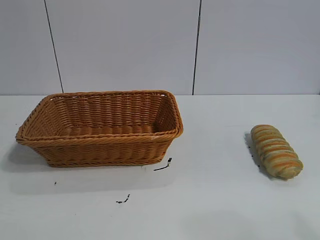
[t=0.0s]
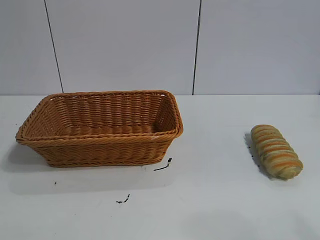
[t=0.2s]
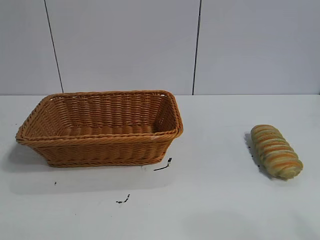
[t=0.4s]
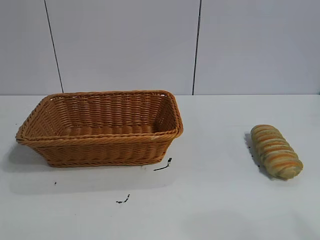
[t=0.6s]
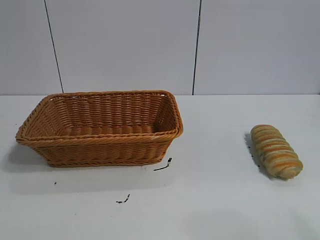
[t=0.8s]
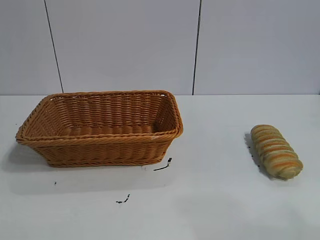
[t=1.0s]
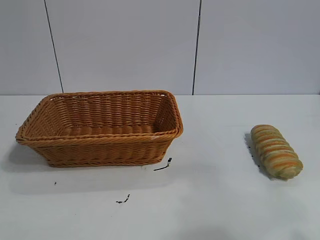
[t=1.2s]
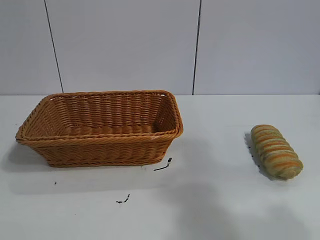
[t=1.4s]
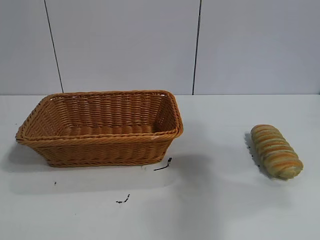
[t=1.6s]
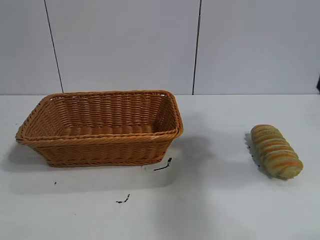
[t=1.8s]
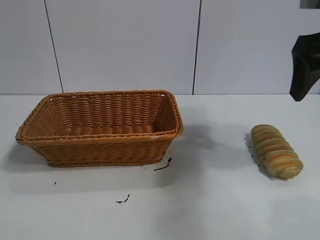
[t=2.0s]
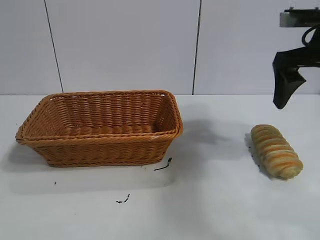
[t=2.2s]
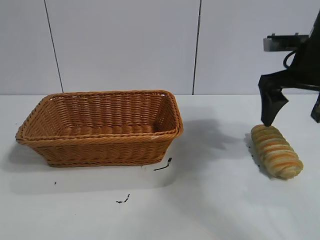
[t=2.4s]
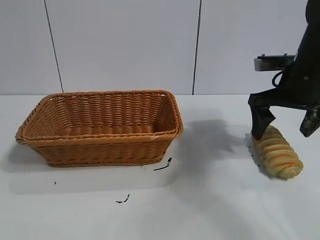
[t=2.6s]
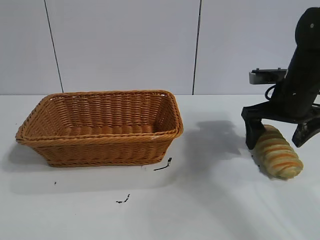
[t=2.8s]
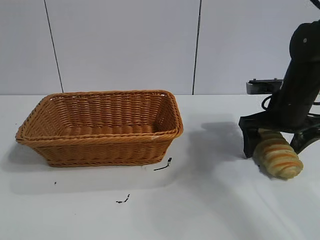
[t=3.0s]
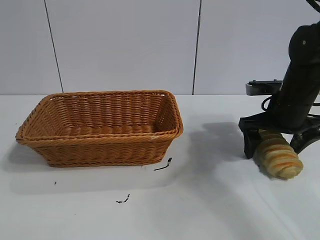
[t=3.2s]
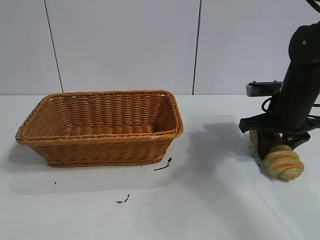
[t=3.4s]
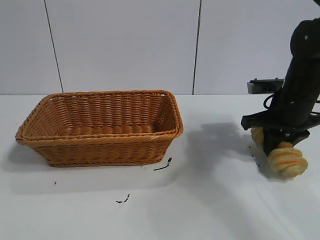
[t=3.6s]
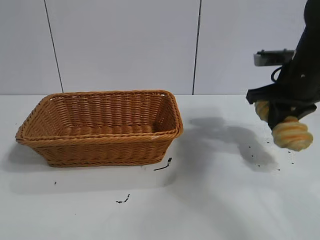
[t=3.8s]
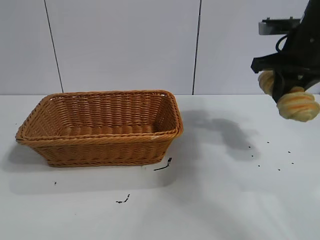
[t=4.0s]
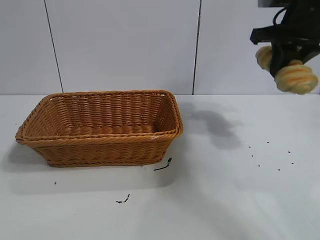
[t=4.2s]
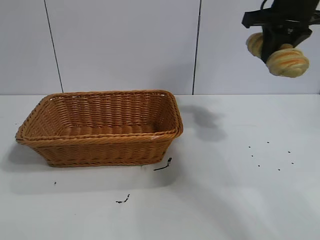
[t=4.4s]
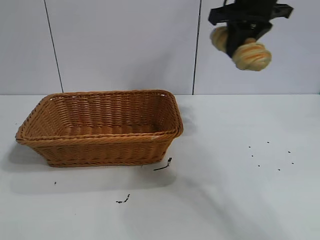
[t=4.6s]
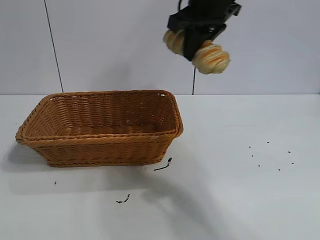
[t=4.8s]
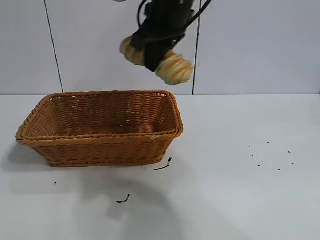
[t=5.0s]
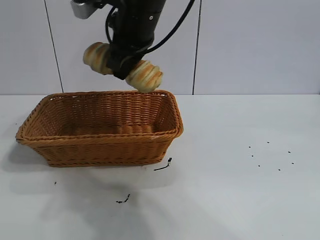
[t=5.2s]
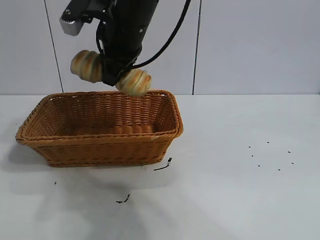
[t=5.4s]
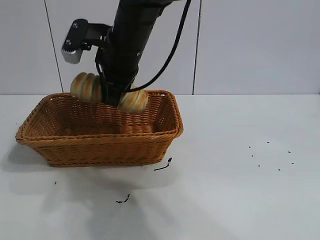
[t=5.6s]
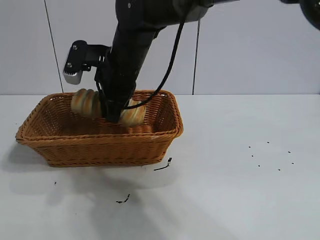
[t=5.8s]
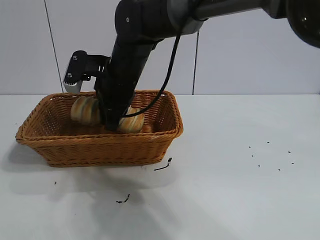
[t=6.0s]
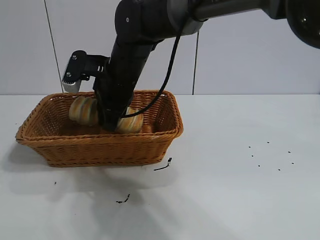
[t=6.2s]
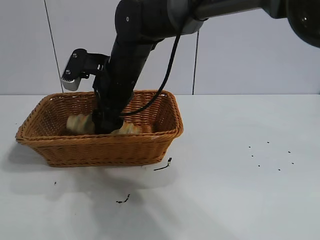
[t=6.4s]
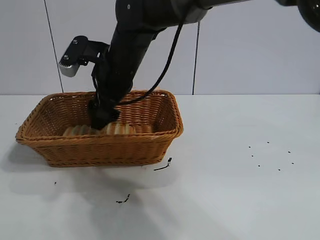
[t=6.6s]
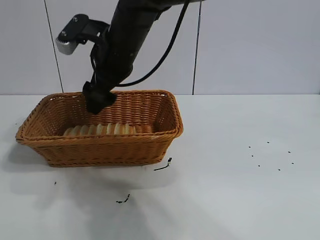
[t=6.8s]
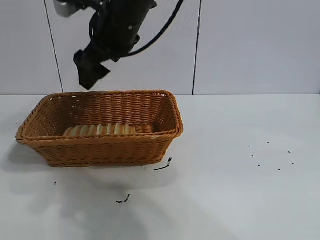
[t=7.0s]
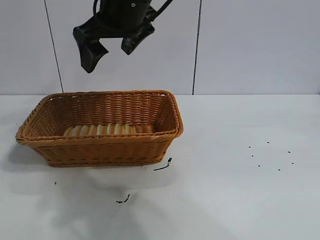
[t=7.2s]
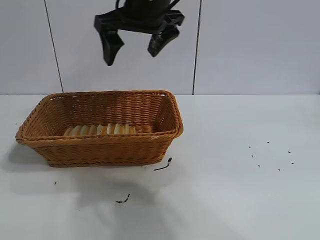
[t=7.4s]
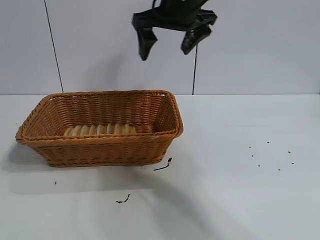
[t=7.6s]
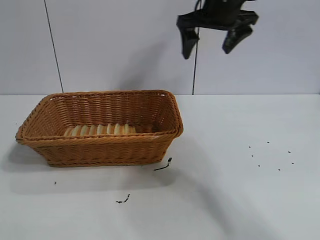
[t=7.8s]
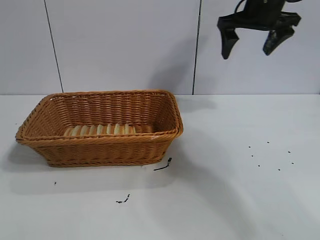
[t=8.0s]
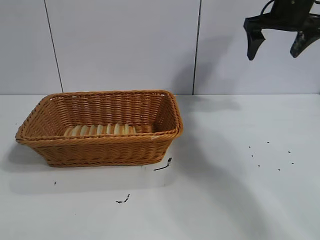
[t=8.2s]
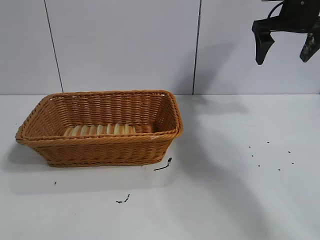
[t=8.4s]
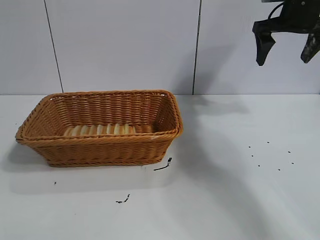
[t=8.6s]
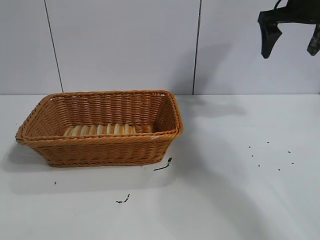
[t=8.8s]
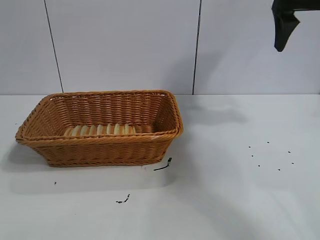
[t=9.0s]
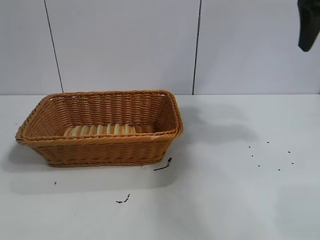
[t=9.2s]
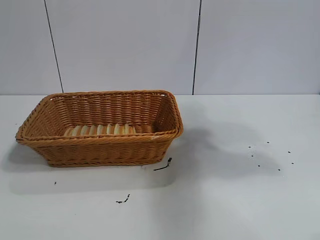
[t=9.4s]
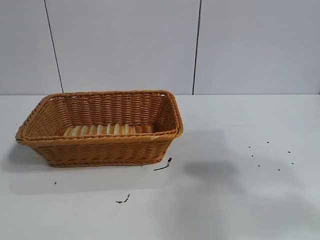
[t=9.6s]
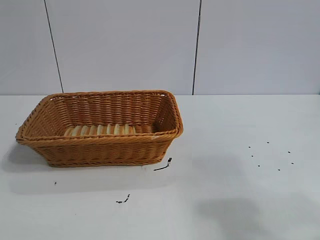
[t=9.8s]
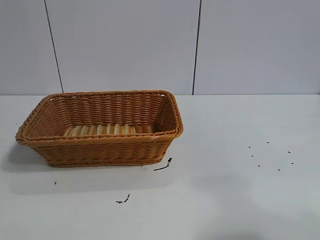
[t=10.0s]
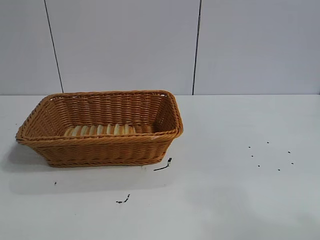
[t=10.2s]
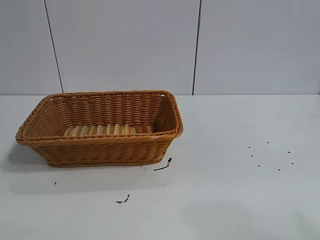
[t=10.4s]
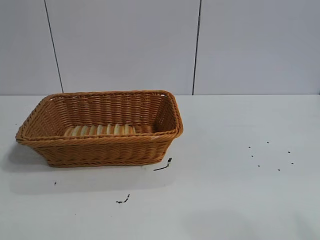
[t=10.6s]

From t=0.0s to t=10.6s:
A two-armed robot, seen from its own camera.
Task of the whole recording: pick up the long bread and put it into the basket.
Step, from t=1.8s to t=3.6s: Grasp the long bread with right gripper.
Step, from t=3.8s to t=6.6s: Place the long bread in the basket with right gripper.
